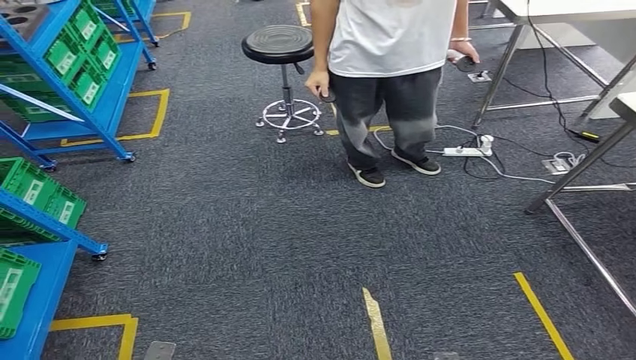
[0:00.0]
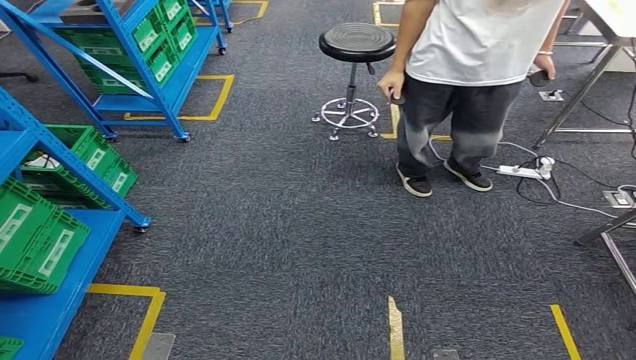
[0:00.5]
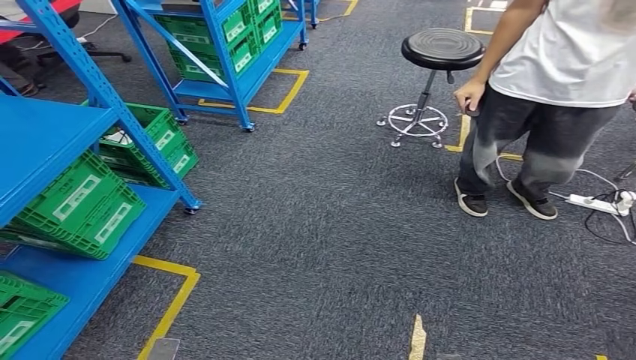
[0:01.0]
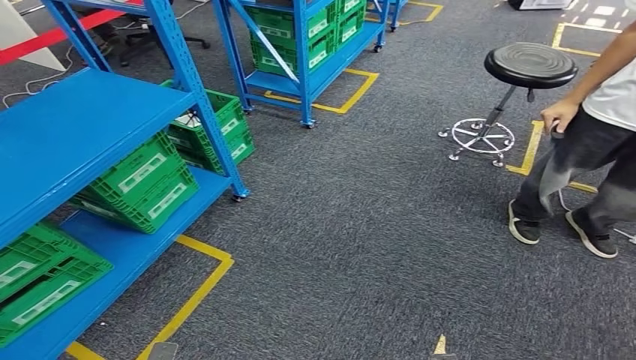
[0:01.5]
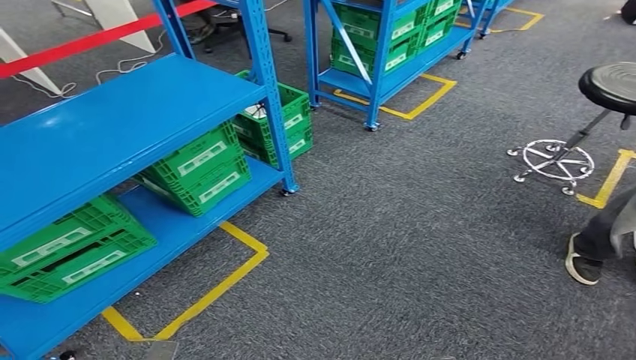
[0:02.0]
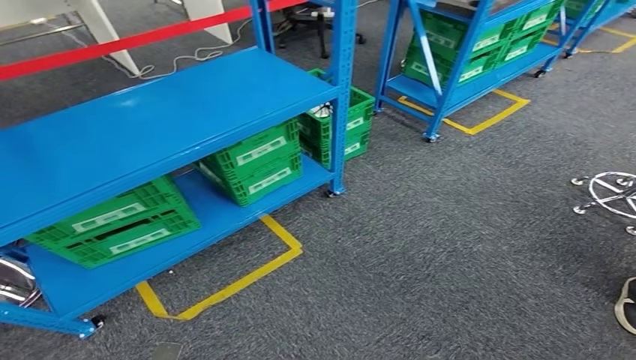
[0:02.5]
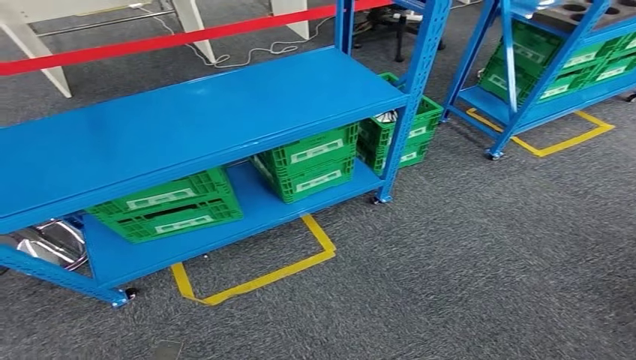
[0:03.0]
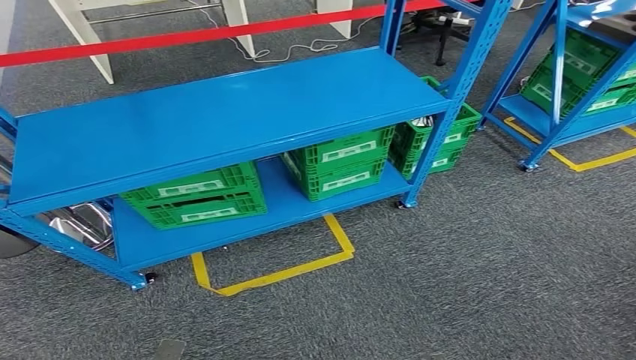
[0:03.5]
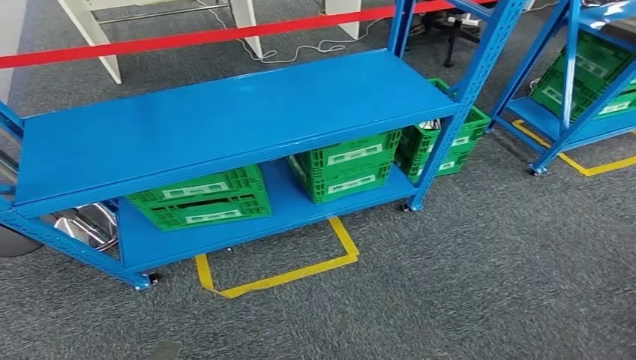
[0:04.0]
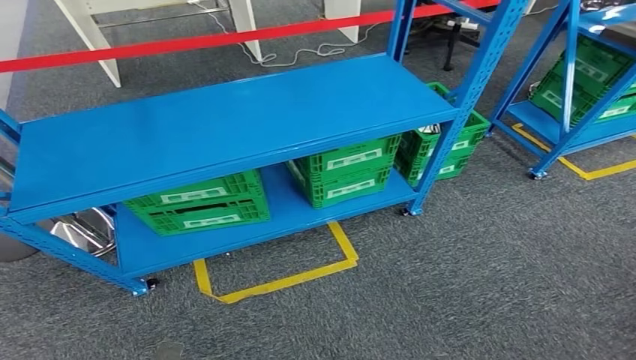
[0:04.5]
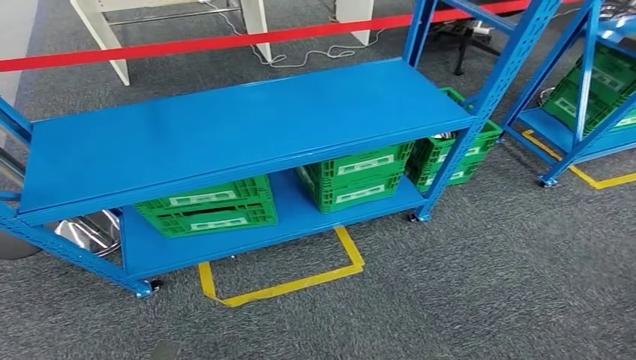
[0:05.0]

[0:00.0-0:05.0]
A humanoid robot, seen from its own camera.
Step, 0:00.0 to 0:05.0: Move to the initial position at the workbench.
